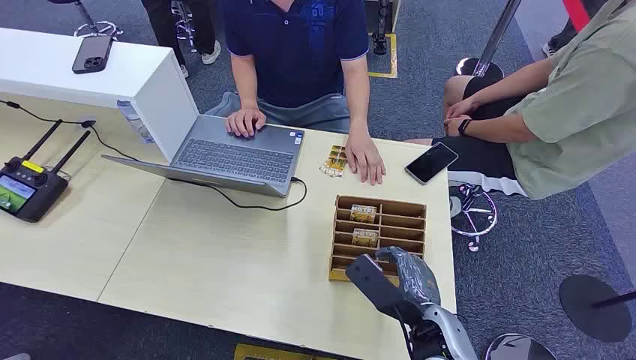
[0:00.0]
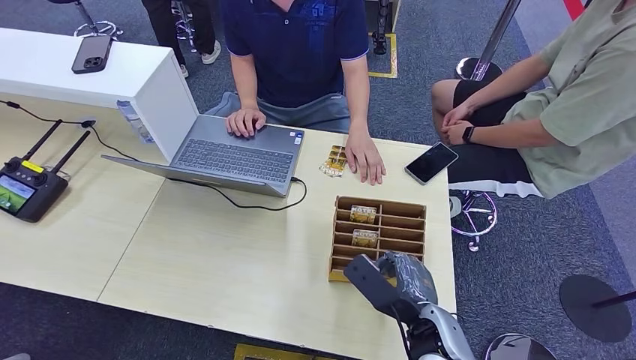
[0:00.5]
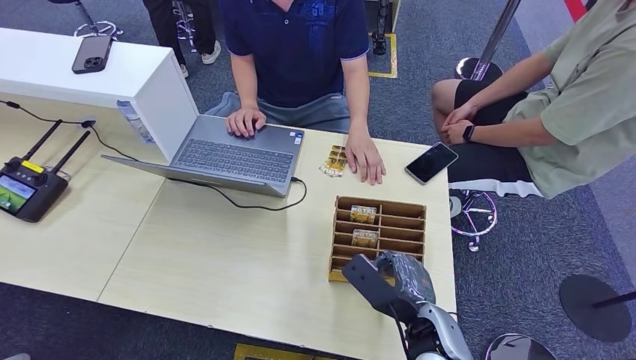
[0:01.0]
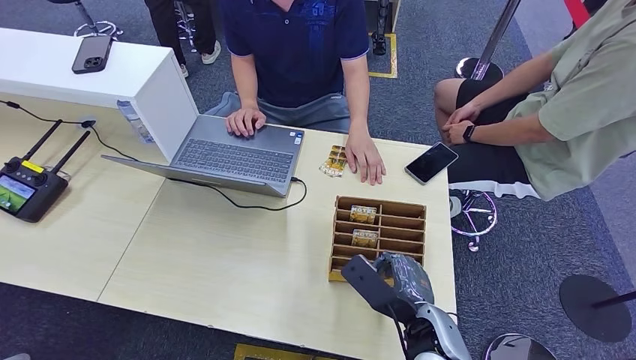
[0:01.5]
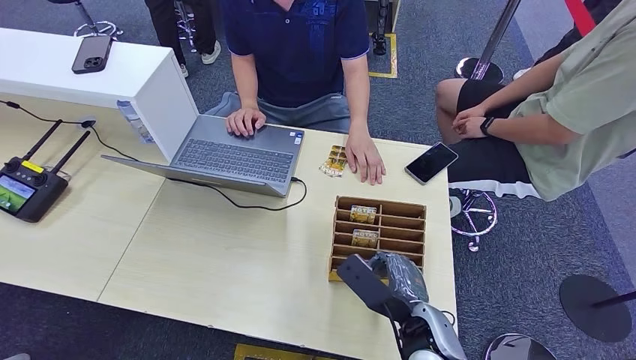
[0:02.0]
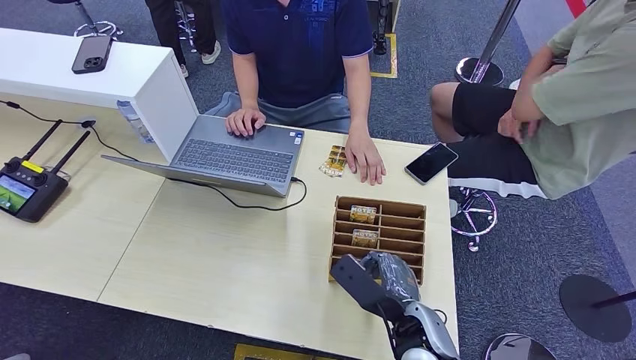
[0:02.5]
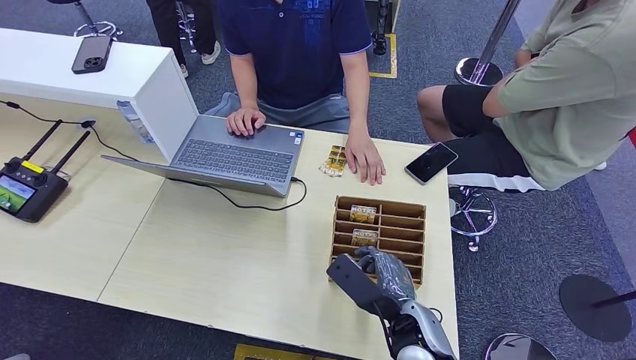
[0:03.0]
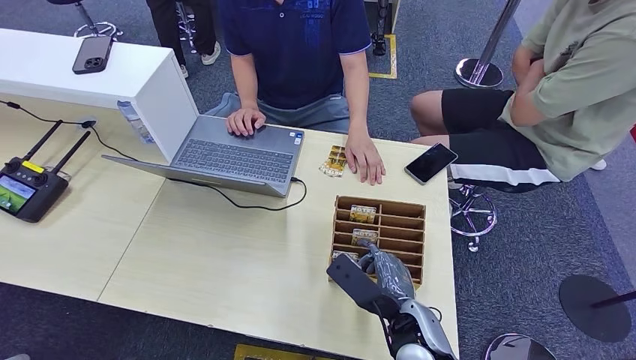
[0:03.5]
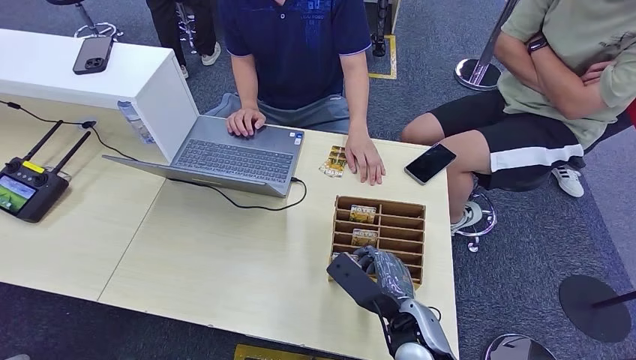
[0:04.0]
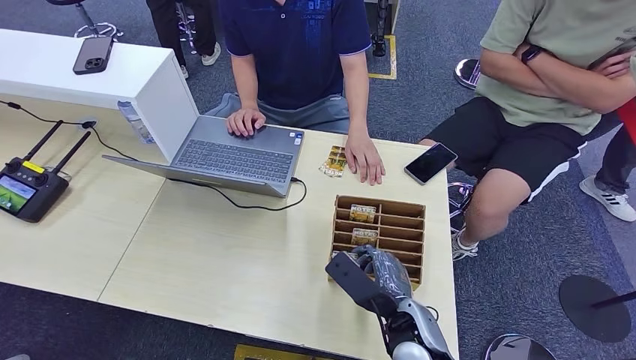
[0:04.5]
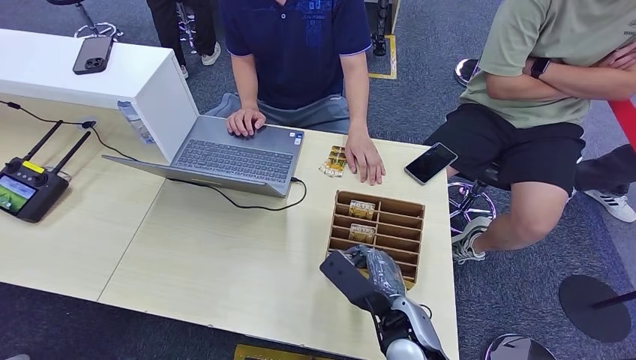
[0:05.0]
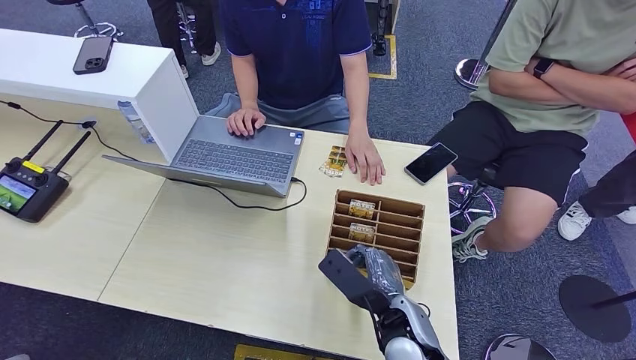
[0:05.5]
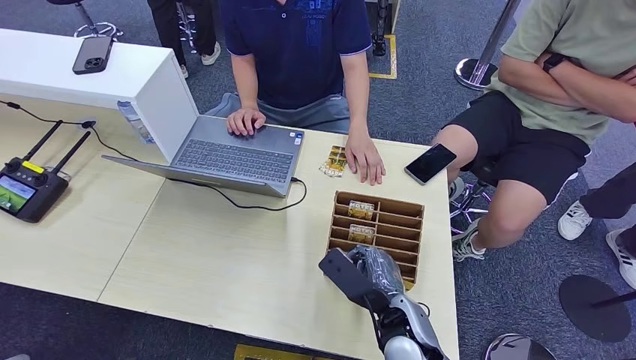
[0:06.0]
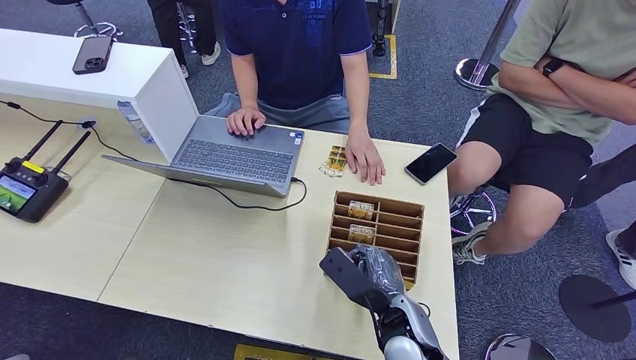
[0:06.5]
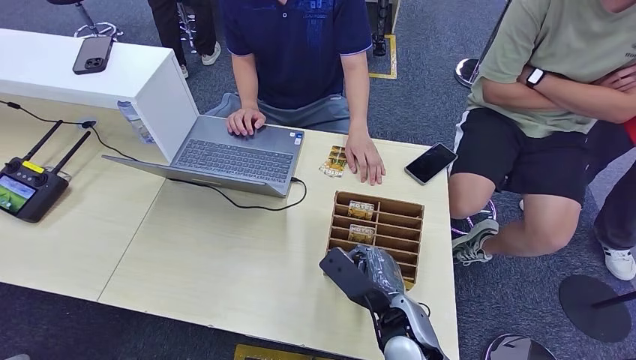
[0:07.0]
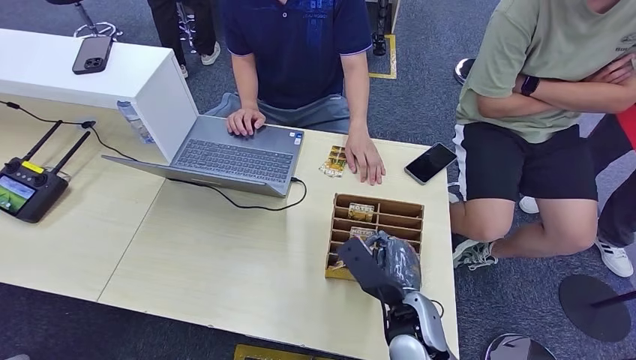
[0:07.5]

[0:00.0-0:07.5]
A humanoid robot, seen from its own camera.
Step, 0:00.0 to 0:02.5: Pick up the key card from the card box.
Step, 0:03.0 to 0:07.5: Hand the key card to the target.
0:02.0 to 0:07.5: The hands move only a little.

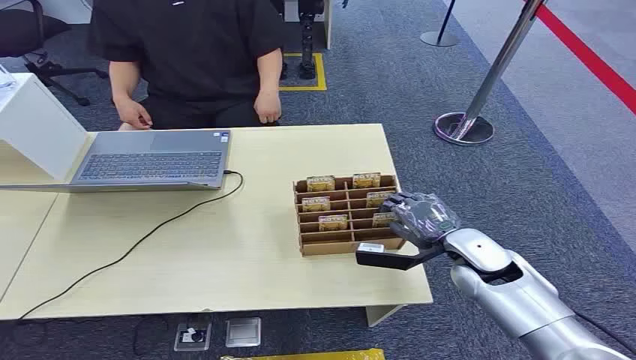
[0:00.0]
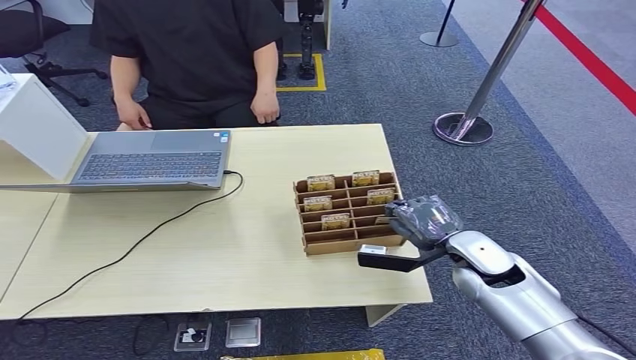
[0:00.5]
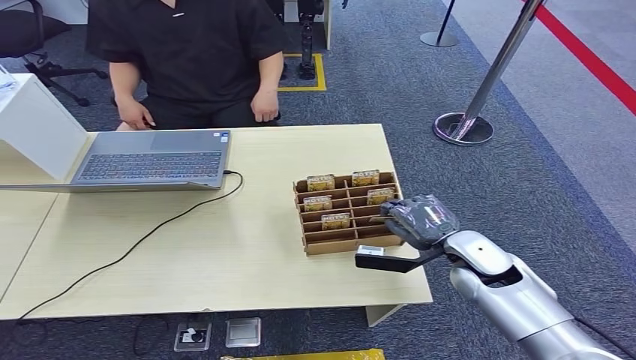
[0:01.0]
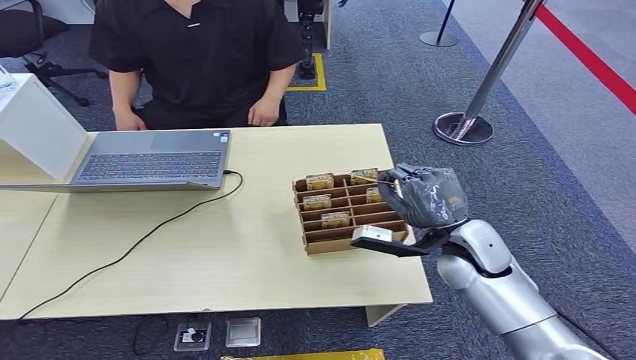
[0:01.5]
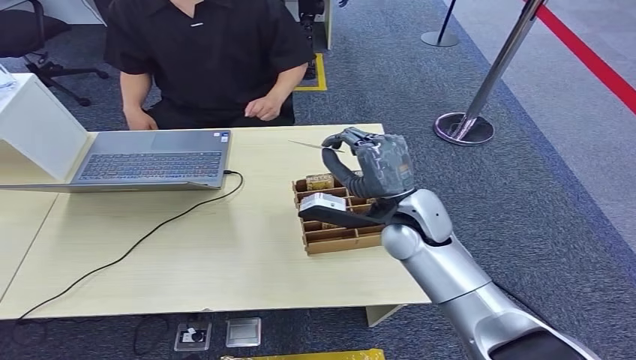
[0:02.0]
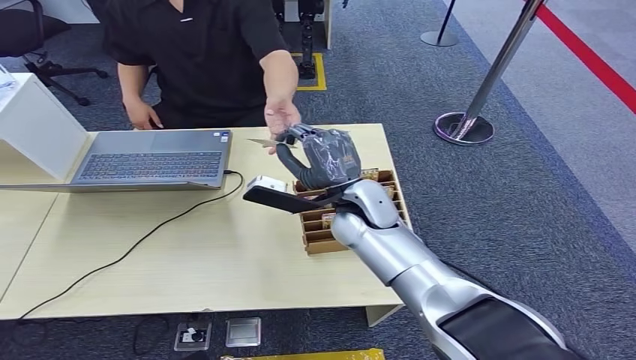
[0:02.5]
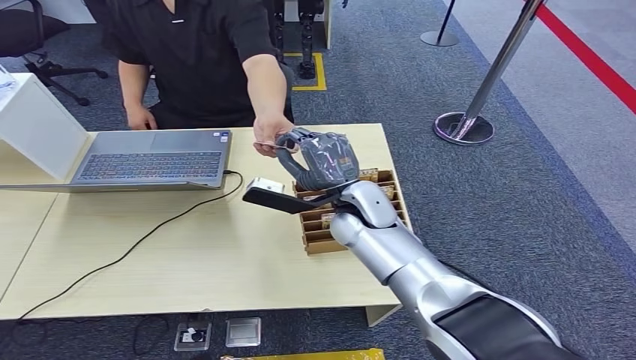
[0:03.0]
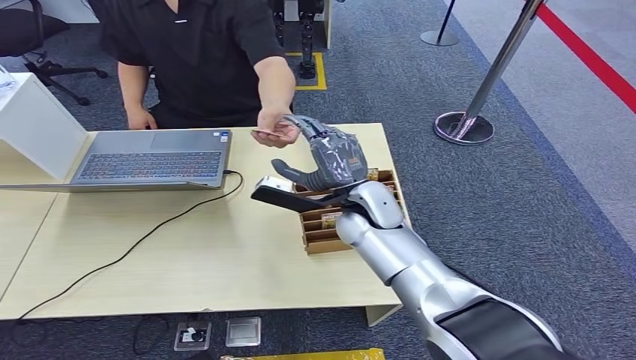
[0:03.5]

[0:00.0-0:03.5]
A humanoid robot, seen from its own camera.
Step, 0:00.0 to 0:01.5: Pick up the key card from the card box.
Step, 0:02.0 to 0:03.5: Hand the key card to the target.
0:02.0 to 0:03.5: The right hand travels to the left by roughly 5 cm.
